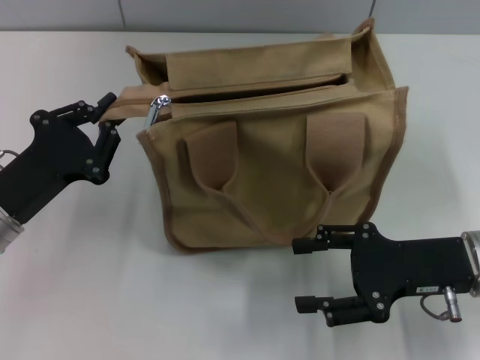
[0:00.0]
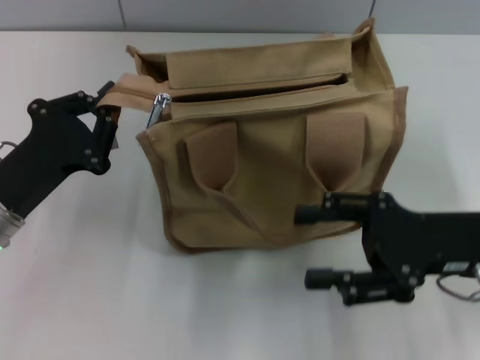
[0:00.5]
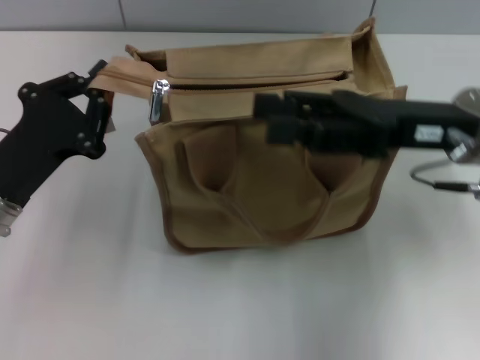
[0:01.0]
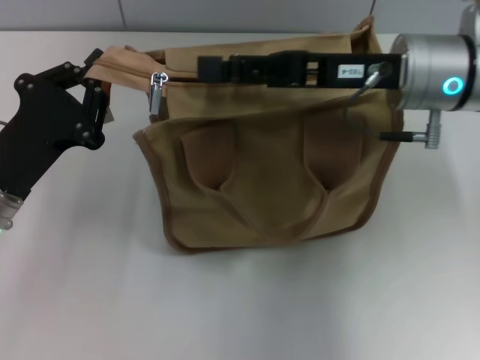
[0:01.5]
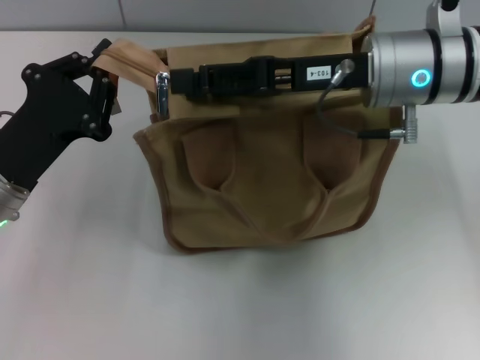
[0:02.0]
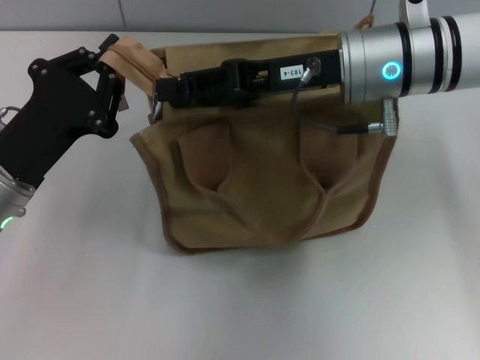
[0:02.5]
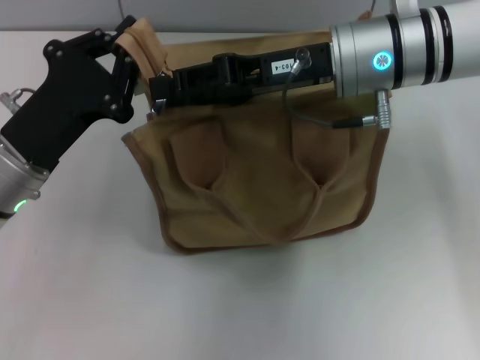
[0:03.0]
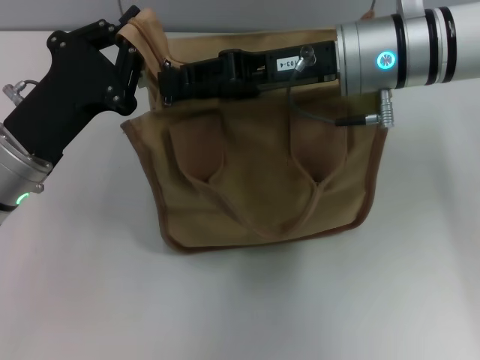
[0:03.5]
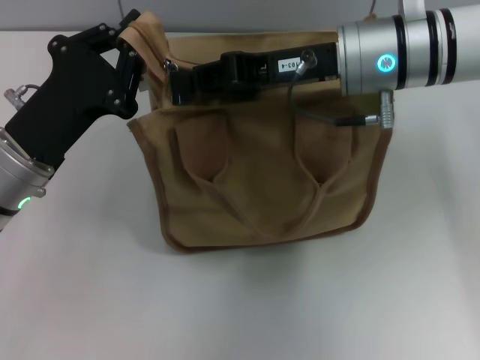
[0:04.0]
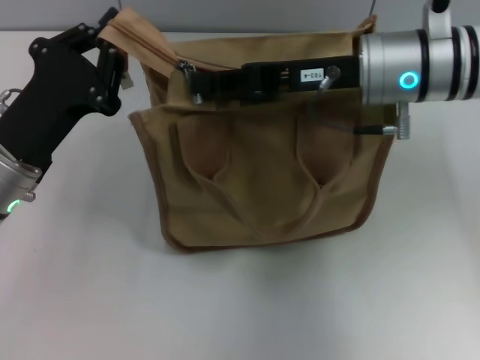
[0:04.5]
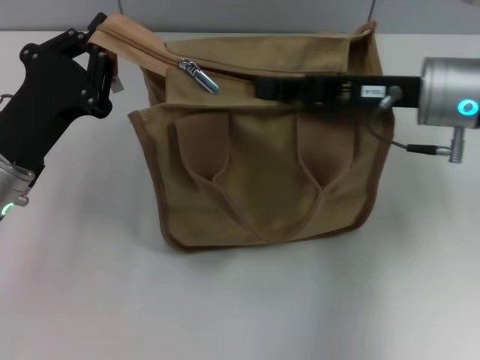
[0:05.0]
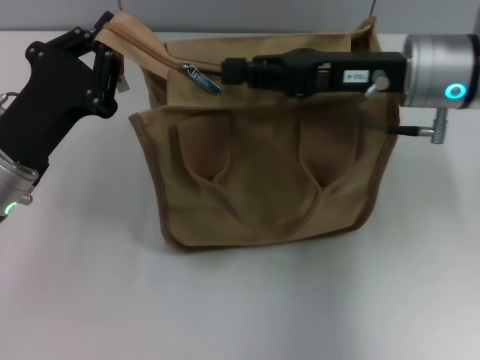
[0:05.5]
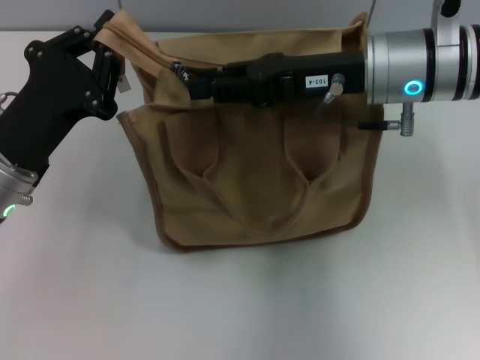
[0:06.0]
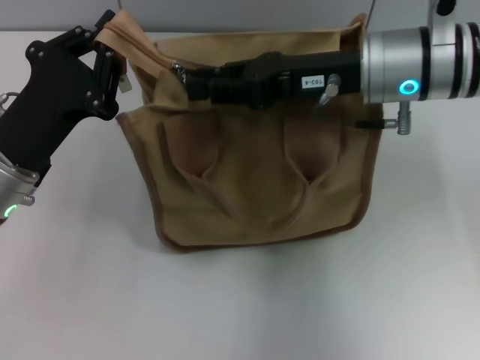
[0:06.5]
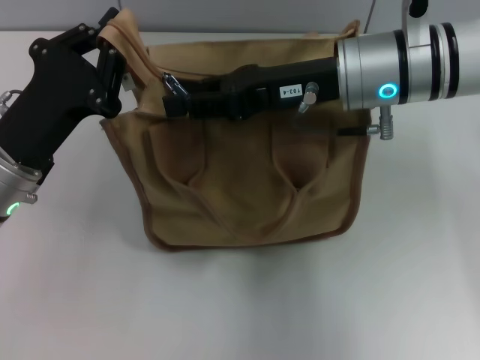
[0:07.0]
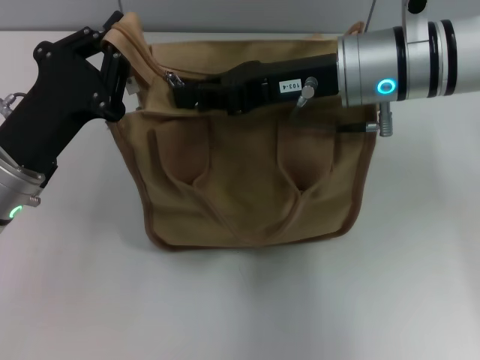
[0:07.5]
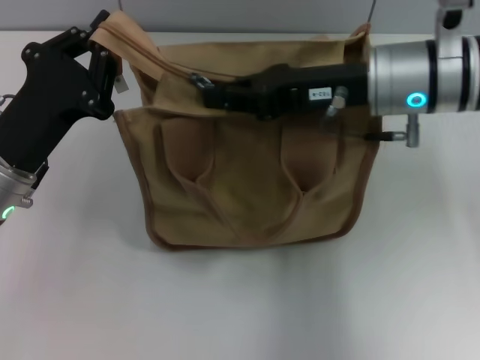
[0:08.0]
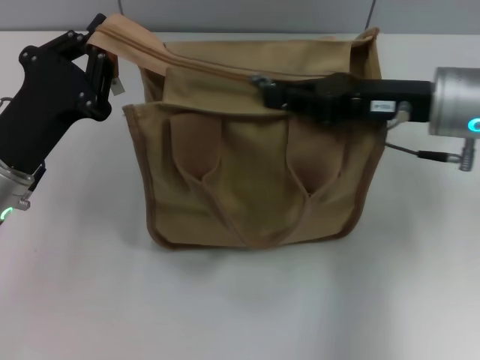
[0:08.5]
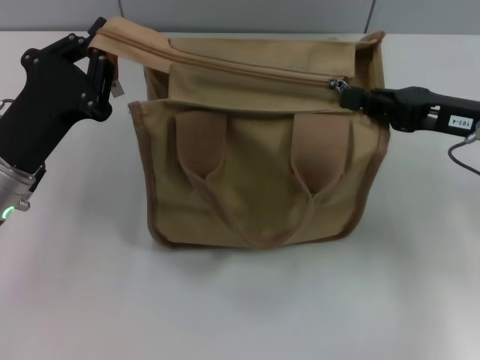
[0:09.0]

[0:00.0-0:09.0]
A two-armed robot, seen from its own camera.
0:00.0 to 0:02.0: The right gripper shifts approximately 20 cm forward, upward and to the left.
0:02.0 to 0:04.5: The right gripper closes.
0:04.5 to 0:07.0: The right gripper opens up.
0:07.0 to 0:09.0: The right gripper shifts roughly 15 cm to the right, and closes.

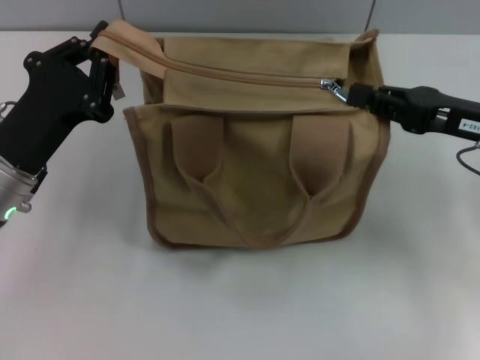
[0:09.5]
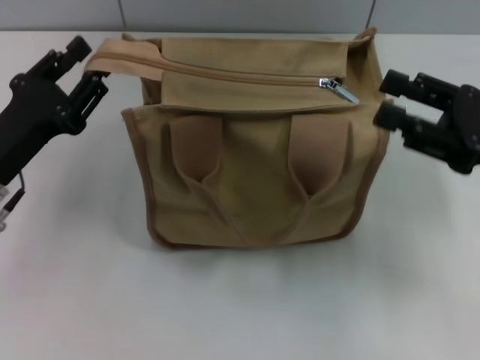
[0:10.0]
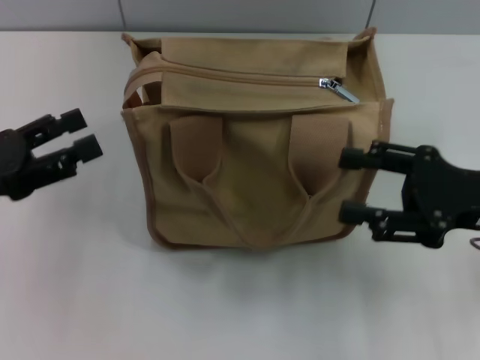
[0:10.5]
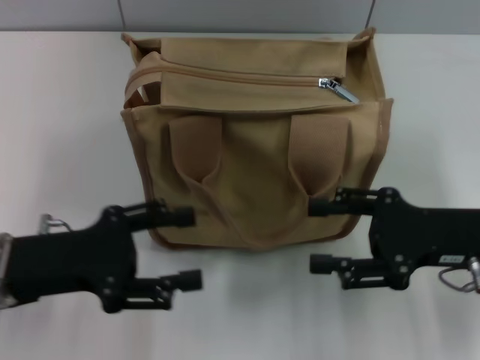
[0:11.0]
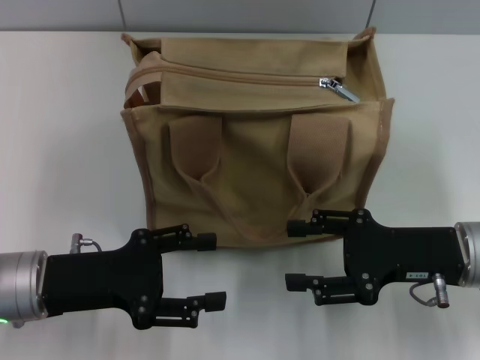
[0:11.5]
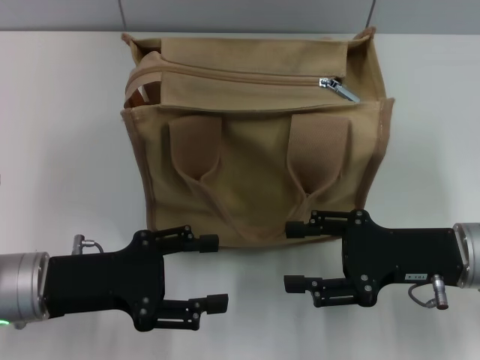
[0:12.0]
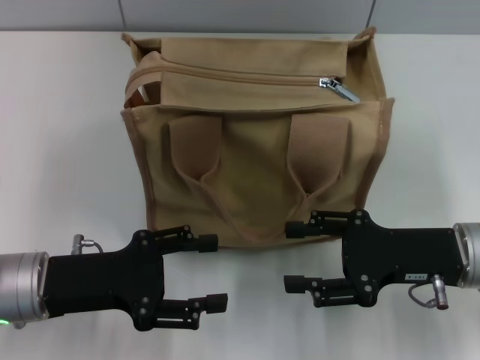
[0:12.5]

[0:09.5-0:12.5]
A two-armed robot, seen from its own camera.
0:09.5 to 0:11.0: The right gripper travels backward by roughly 5 cm, and opens; the left gripper reaches some 10 cm to the left, then returns, and opens its fingers.
0:11.0 to 0:12.5: The grippers move only a little.
